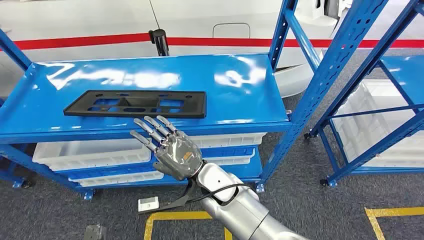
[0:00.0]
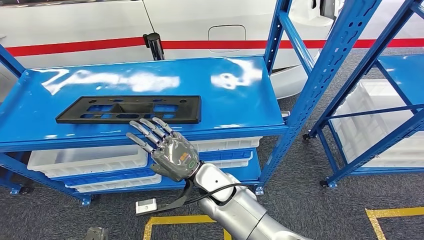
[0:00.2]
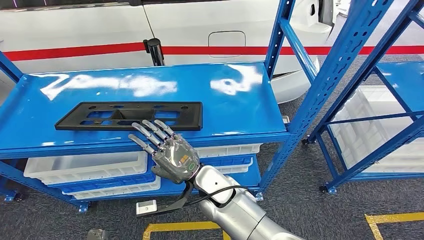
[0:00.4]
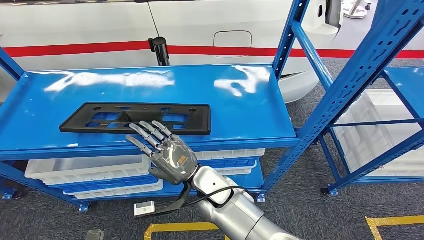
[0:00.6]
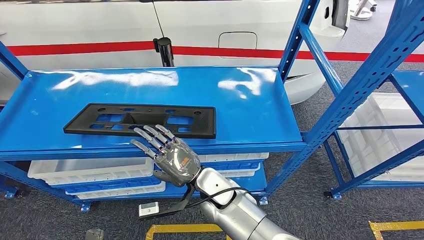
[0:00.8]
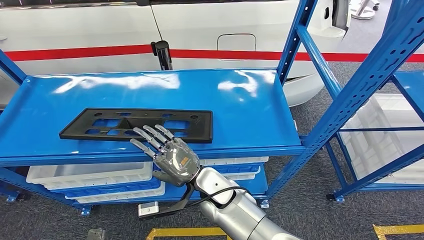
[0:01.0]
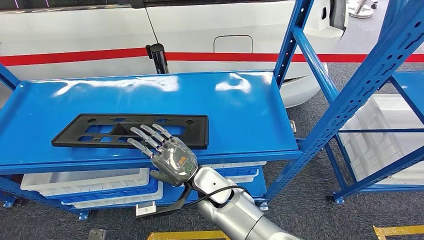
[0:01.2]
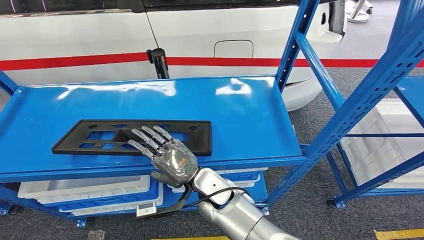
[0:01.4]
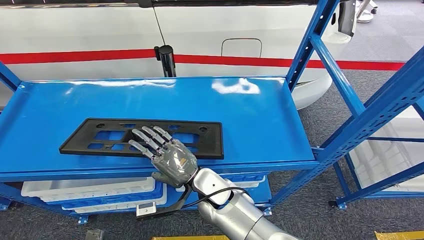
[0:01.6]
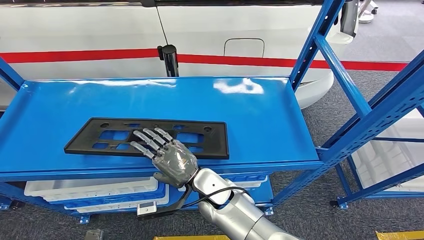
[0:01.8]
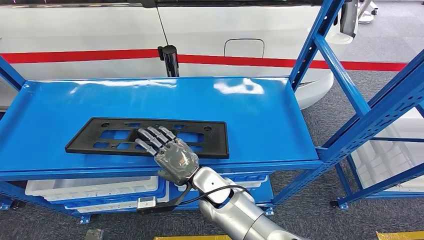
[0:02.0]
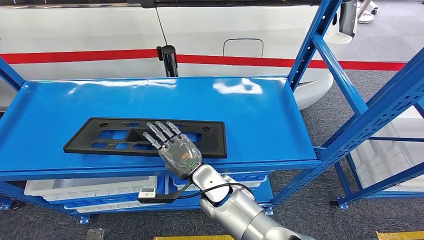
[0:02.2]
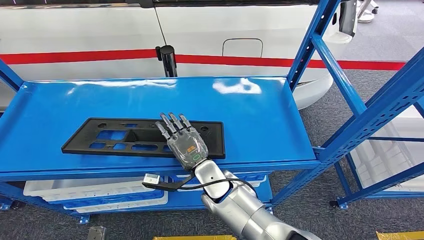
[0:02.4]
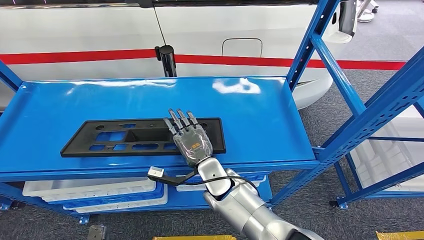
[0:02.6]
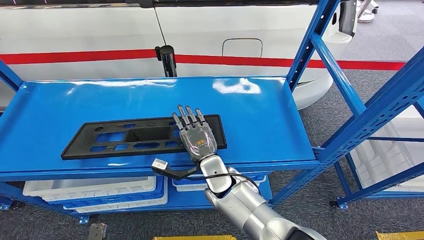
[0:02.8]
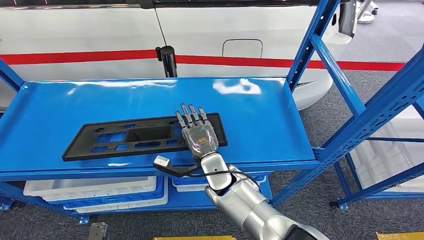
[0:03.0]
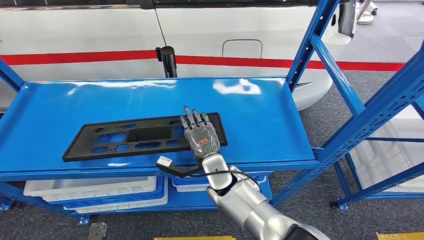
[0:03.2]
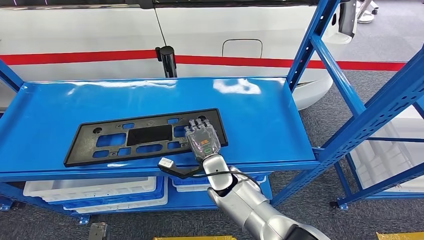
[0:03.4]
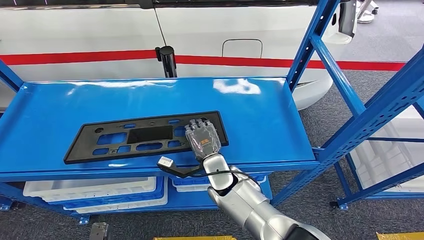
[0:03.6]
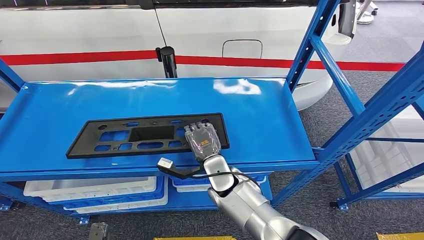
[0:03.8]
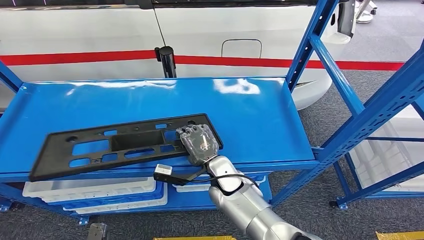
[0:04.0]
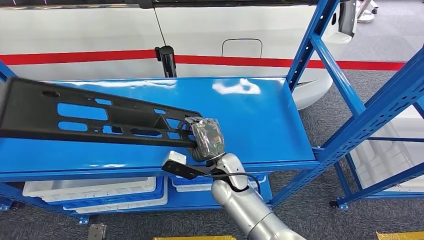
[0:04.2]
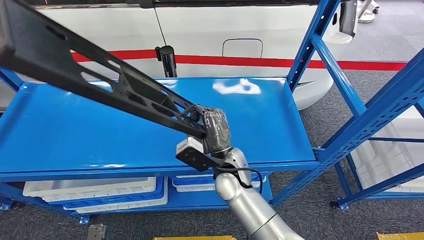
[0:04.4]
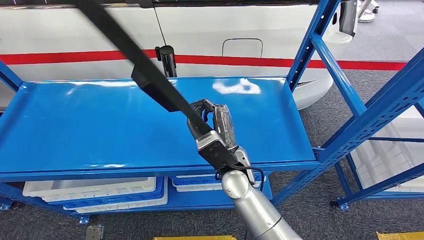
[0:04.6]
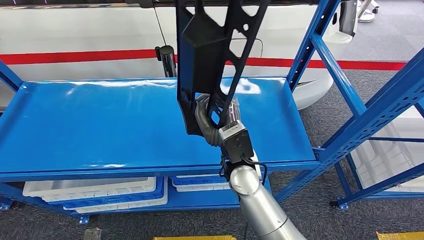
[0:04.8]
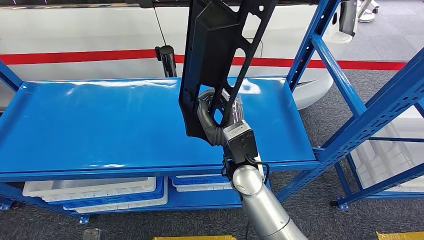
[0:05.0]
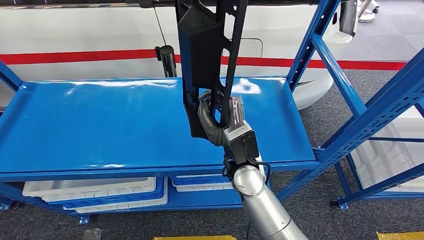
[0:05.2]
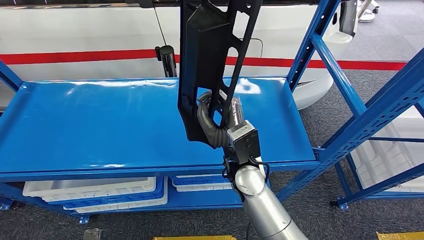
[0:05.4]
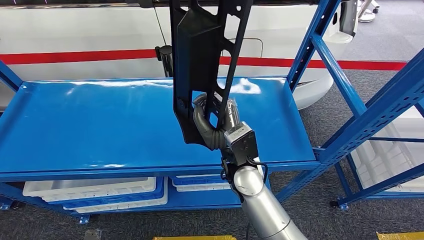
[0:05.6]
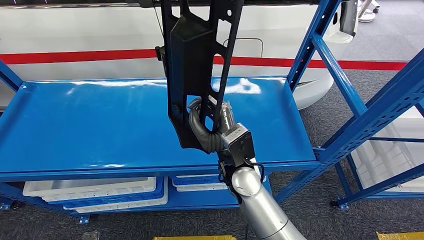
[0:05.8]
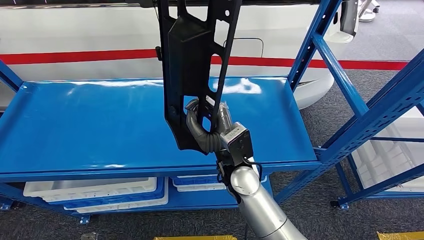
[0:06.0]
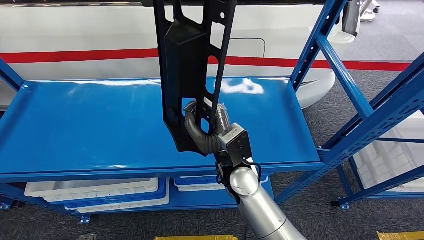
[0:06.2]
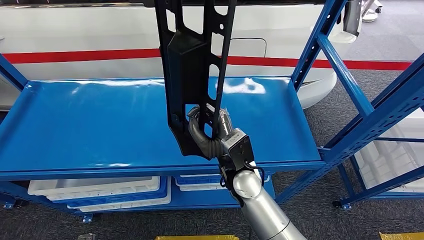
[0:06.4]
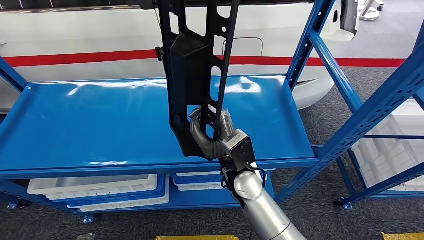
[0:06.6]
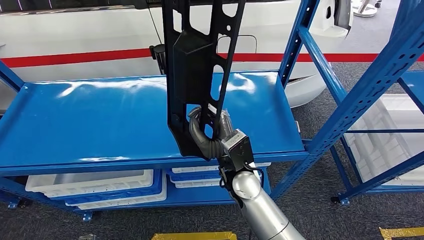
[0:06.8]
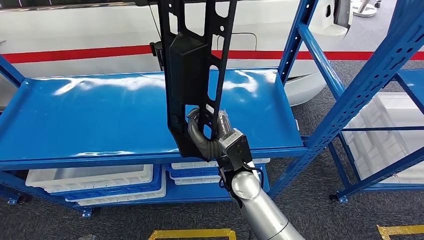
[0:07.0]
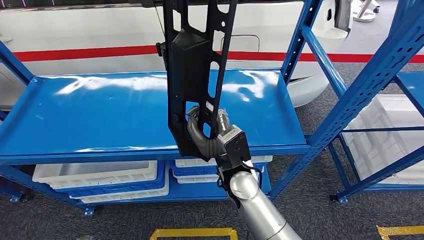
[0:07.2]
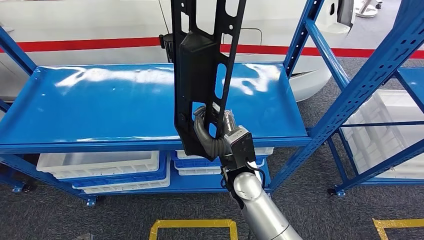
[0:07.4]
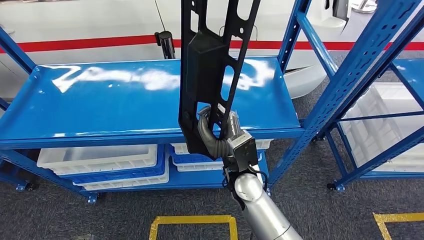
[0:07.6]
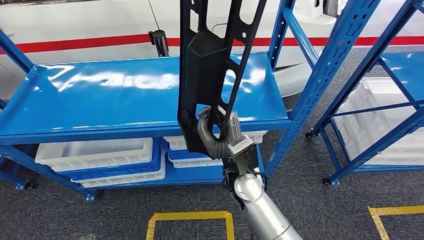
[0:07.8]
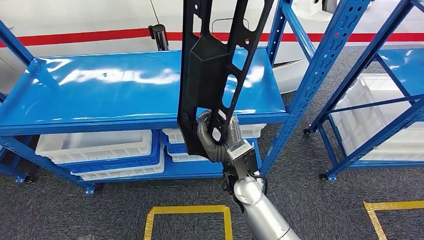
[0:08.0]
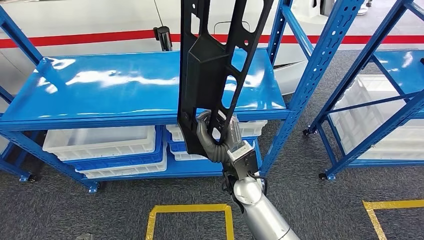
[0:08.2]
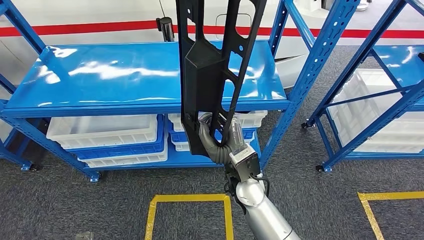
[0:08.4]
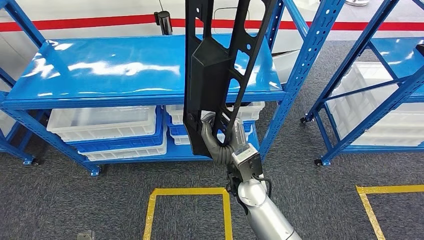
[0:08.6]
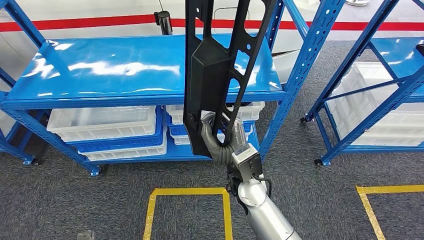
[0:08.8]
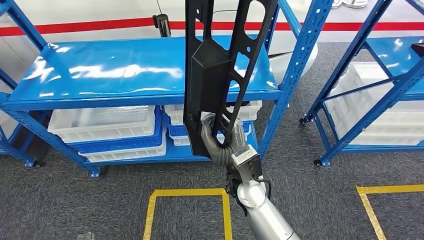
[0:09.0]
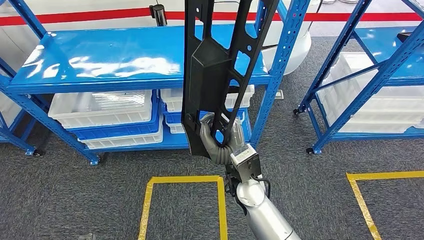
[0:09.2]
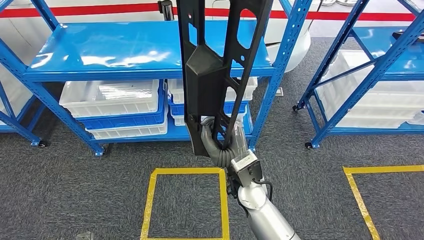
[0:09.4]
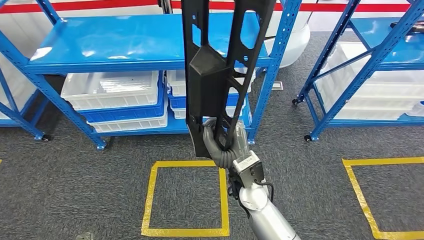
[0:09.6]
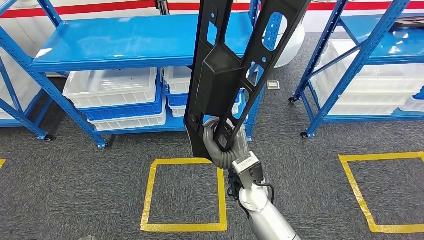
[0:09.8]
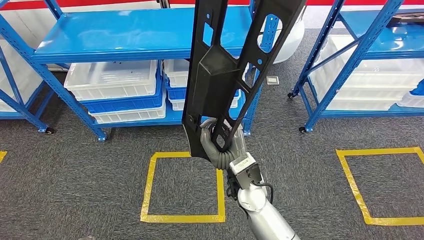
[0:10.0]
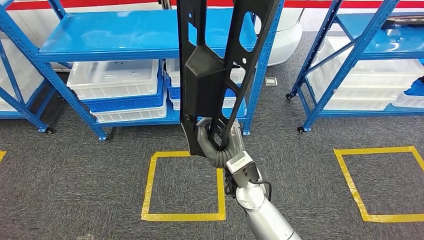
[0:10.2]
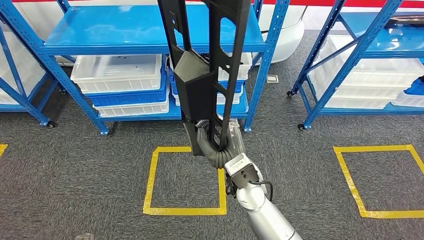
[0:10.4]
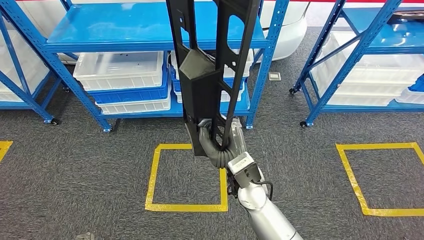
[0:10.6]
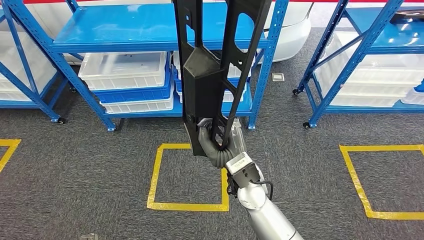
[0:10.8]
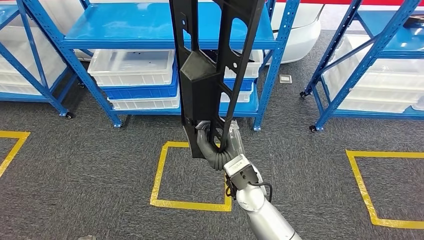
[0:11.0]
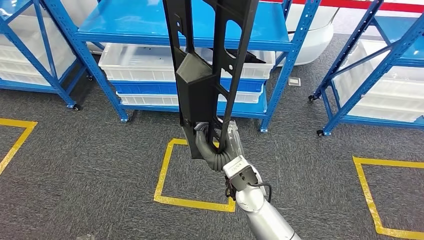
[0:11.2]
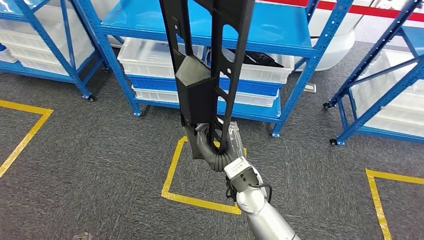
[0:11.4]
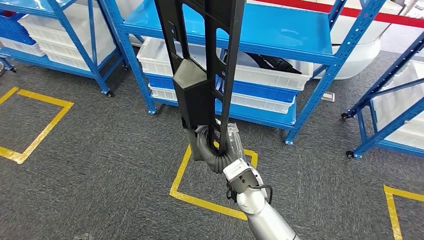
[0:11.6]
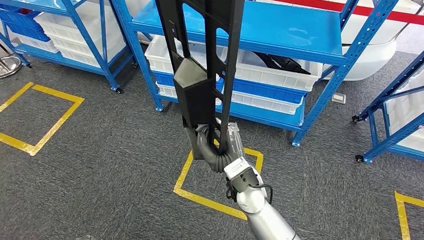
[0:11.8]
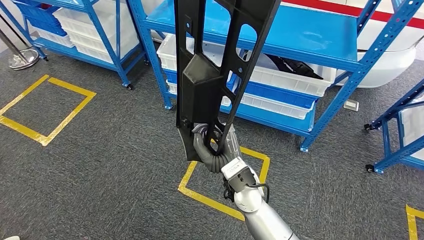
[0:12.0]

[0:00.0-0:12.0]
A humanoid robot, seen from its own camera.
Step, 0:00.0 to 0:05.8: Pick up the large material from the shelf.

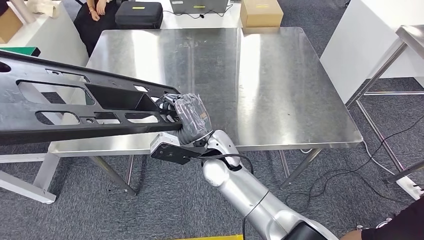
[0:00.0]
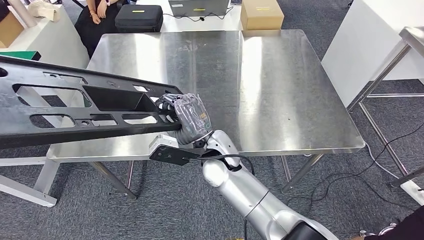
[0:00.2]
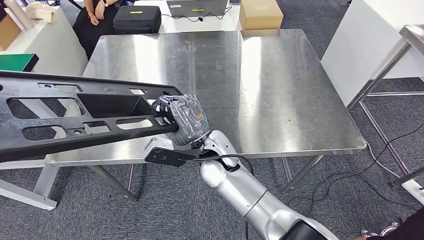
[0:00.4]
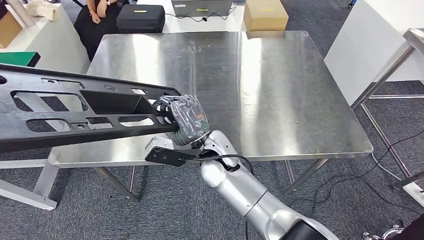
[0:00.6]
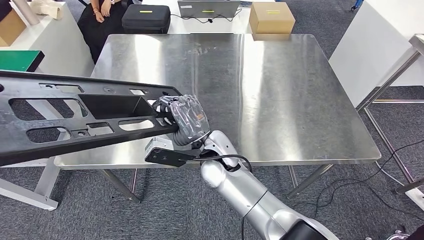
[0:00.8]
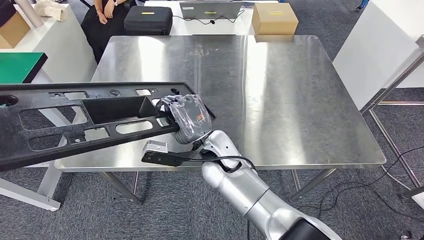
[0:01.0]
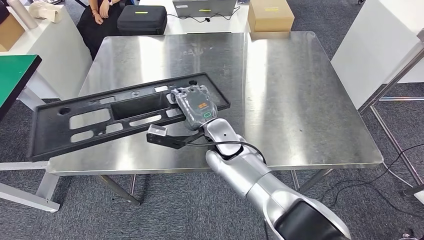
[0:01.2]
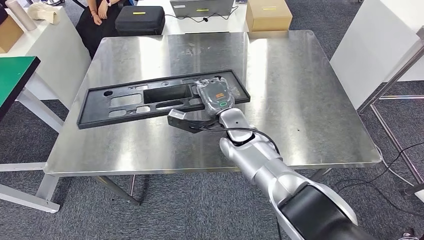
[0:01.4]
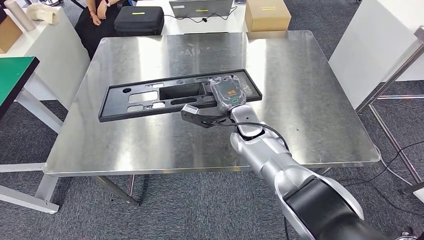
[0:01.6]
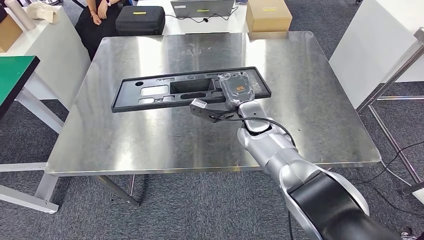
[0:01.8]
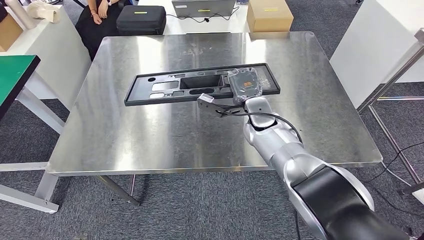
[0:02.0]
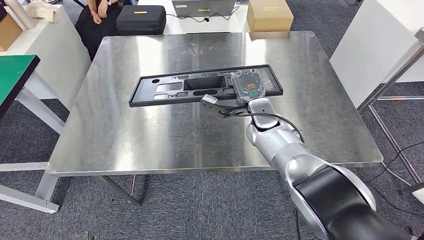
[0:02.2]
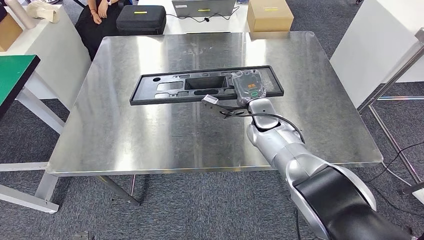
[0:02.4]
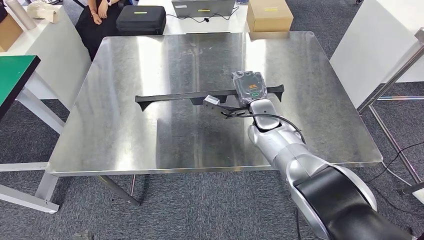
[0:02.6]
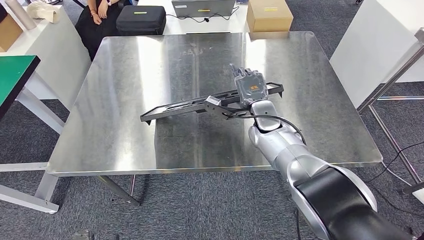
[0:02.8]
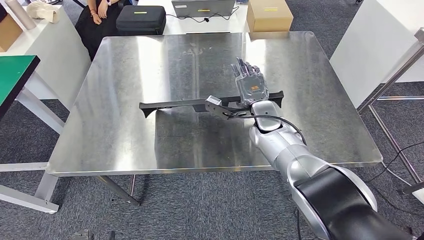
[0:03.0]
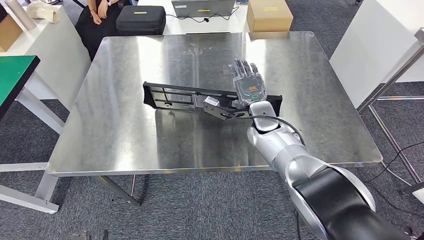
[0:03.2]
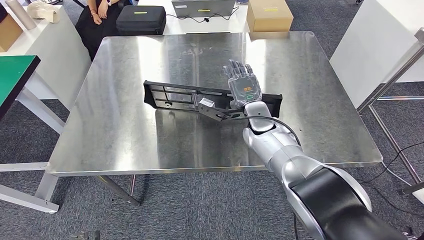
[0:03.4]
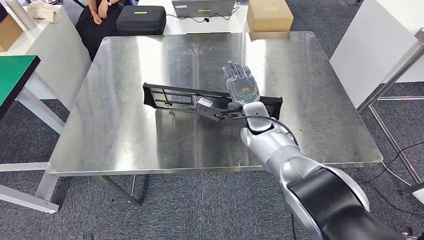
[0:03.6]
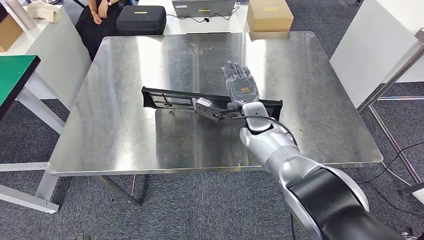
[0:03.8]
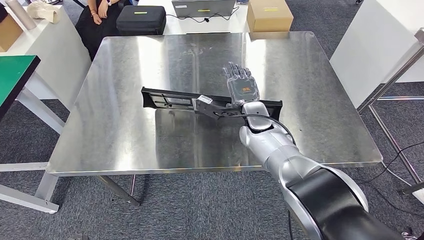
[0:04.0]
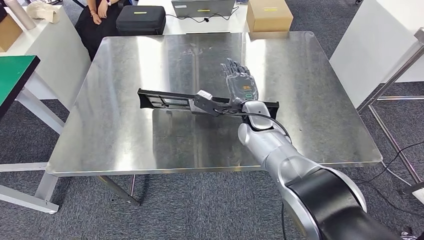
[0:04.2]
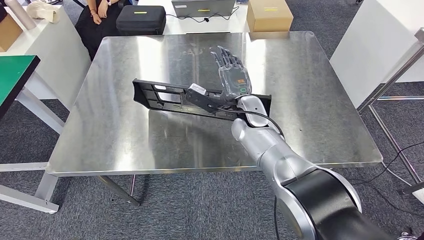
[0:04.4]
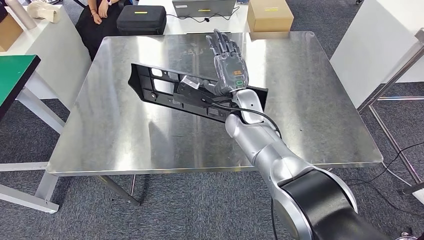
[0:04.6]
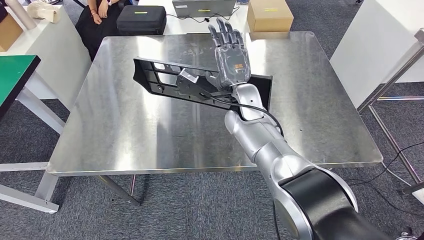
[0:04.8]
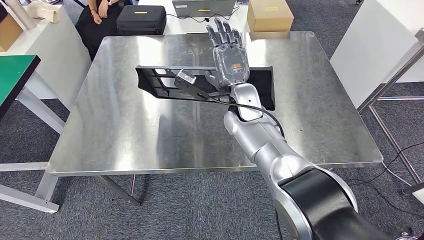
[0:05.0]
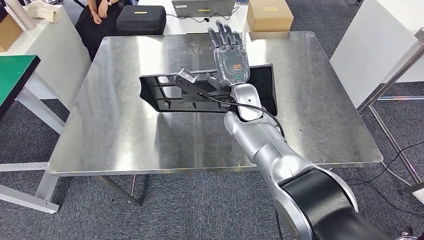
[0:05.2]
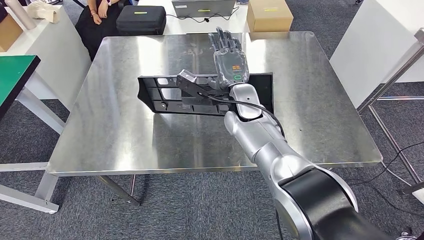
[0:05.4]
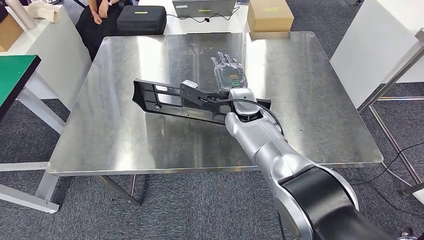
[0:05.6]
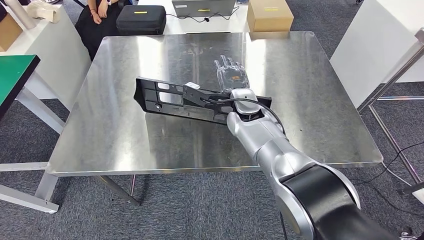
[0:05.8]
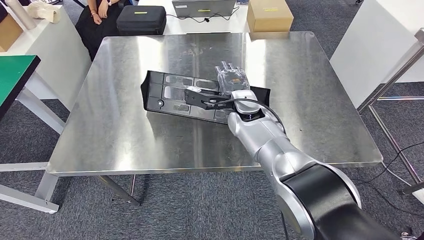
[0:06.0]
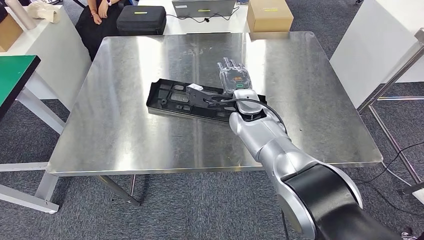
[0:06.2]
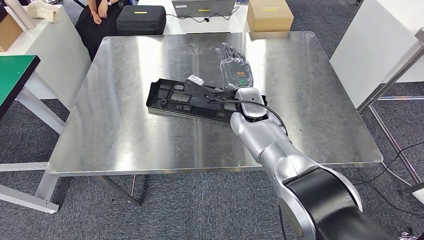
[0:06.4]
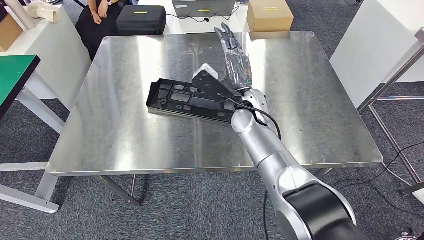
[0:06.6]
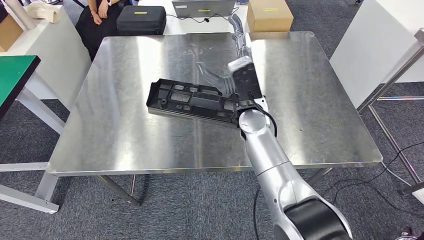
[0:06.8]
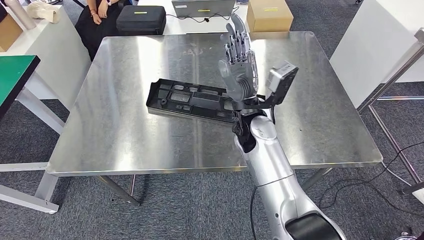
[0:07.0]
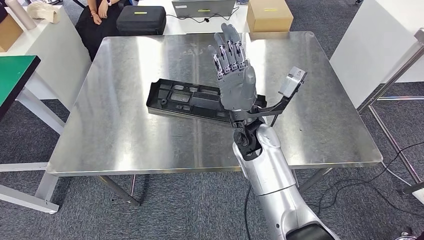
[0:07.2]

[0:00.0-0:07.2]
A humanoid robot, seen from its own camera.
0:05.8 to 0:07.2: The right hand heads backward, covering about 10 cm.
